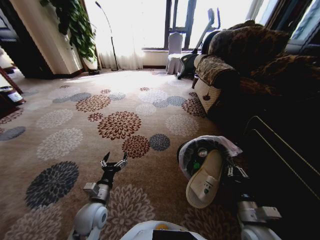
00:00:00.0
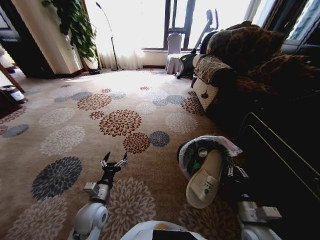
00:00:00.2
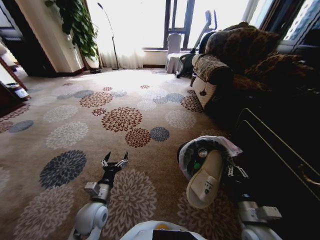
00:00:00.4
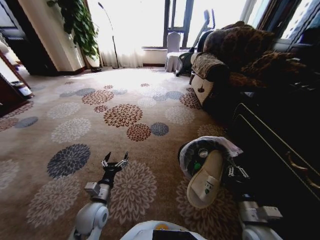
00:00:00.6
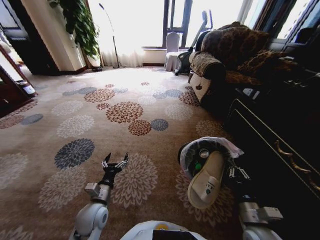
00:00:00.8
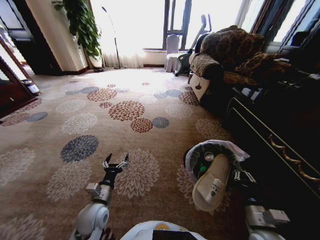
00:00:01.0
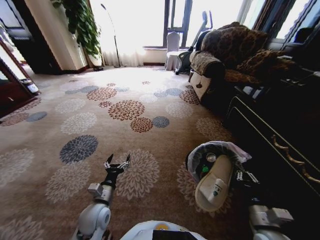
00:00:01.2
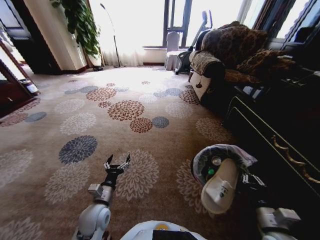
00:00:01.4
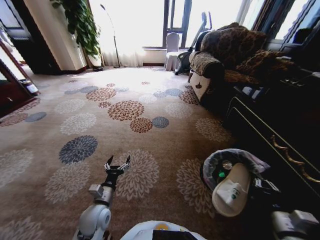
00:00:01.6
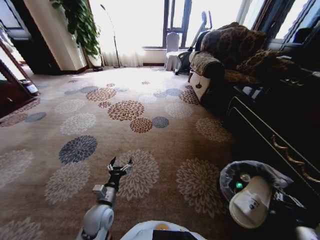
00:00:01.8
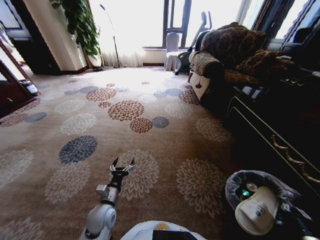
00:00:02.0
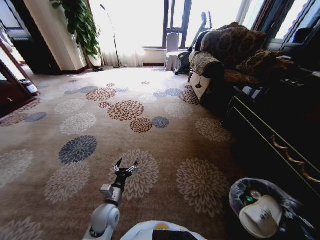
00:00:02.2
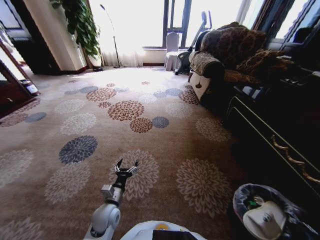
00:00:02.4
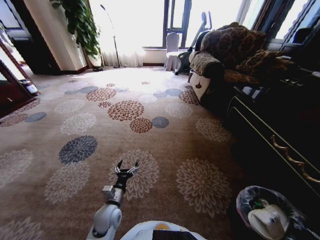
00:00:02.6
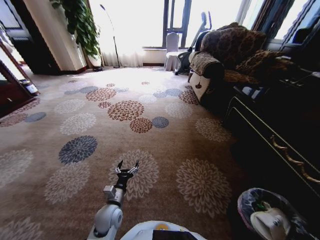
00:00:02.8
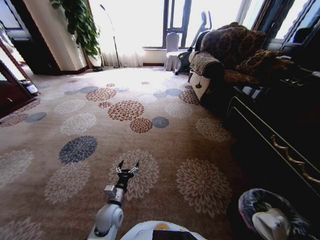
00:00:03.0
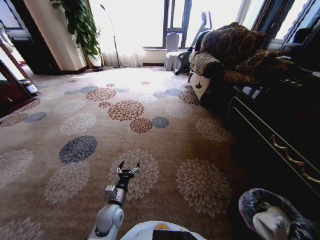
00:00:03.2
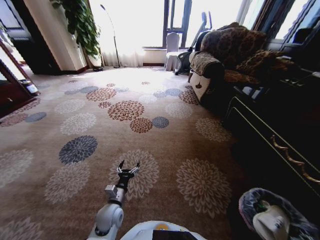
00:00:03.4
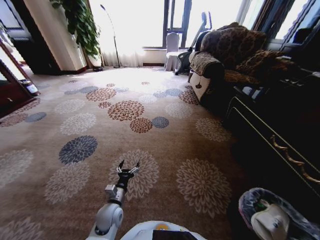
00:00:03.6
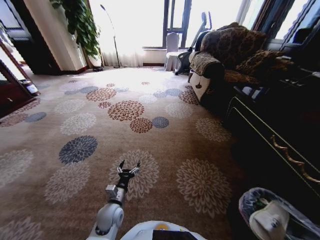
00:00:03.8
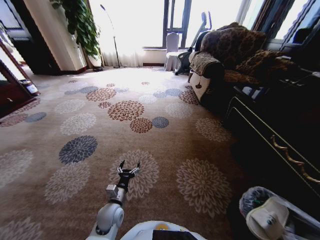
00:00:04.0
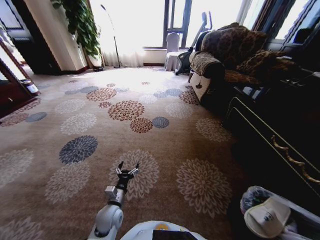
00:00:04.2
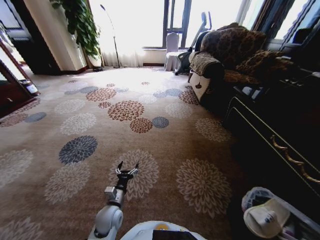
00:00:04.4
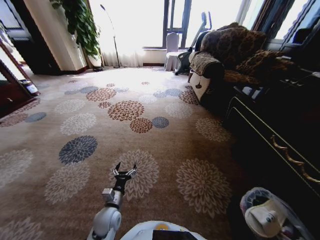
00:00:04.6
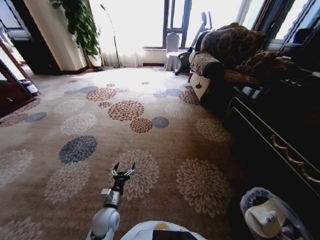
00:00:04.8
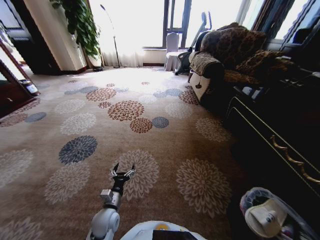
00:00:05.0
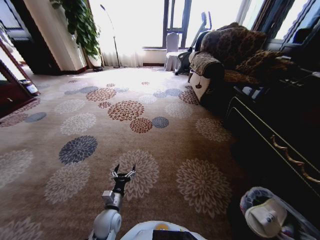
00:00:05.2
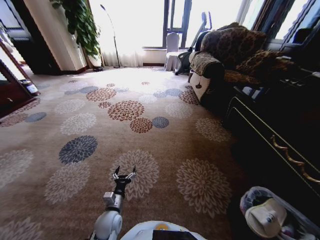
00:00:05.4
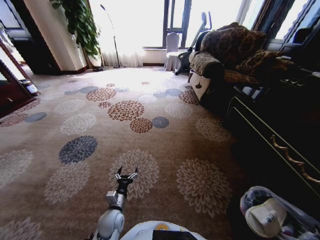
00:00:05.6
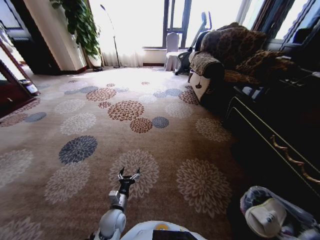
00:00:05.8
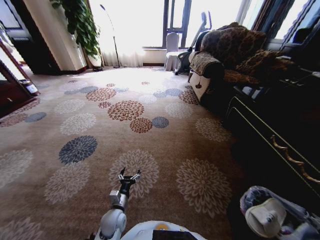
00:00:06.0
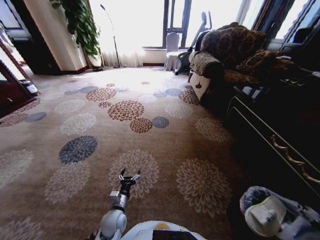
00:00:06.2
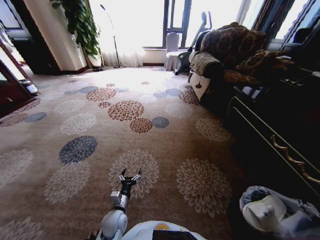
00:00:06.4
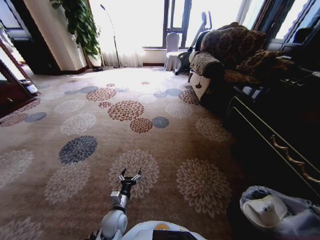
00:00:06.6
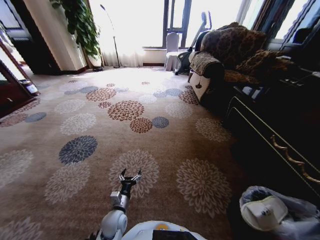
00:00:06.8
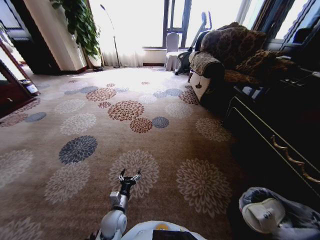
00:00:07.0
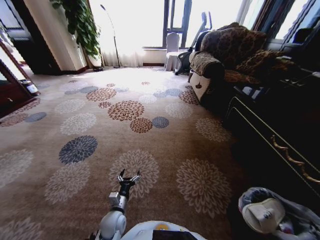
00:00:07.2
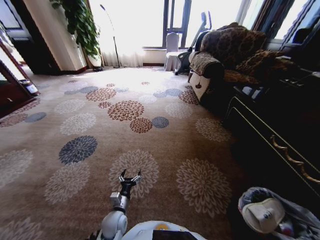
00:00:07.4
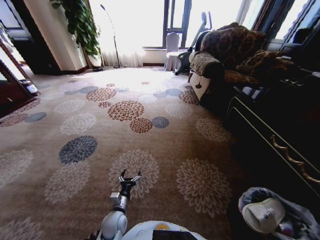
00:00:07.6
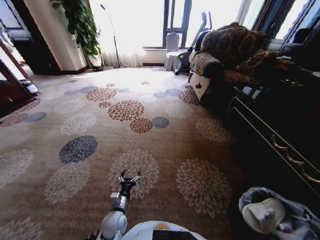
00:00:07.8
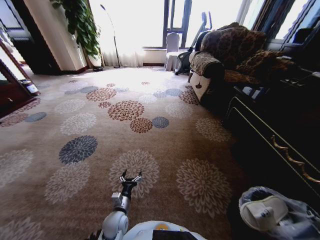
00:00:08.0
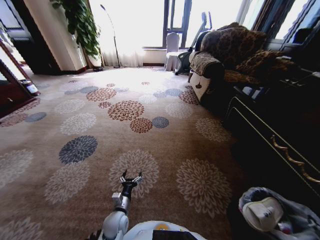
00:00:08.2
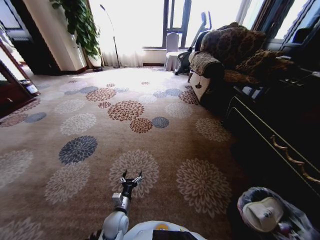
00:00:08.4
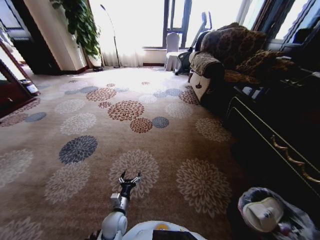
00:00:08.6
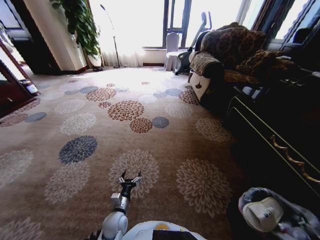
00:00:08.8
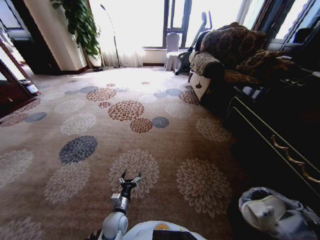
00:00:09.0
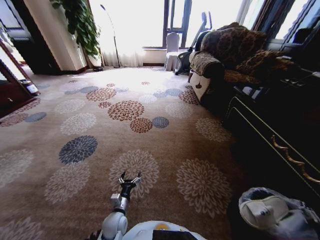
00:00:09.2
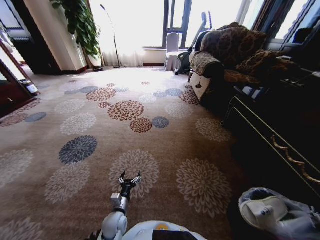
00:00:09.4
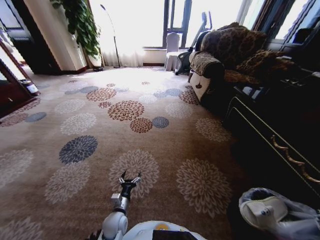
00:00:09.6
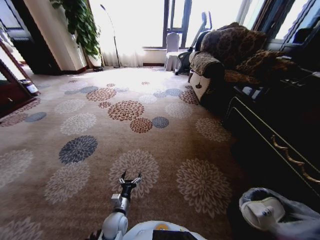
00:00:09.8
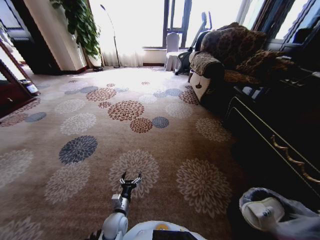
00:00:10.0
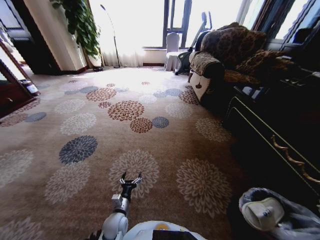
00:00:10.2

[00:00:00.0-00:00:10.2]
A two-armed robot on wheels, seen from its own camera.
Task of the whole recording: Pick up the trash from the ground and place it into the trash bin.
00:00:00.0 to 00:00:01.4: The right gripper heads to the right, covering approximately 5 cm.
00:00:01.4 to 00:00:03.0: The left gripper is displaced downward by roughly 5 cm; the right gripper moves to the right, backward and downward, some 20 cm.
00:00:03.0 to 00:00:04.4: The right gripper is displaced backward by about 10 cm, and opens its fingers.
00:00:04.4 to 00:00:05.8: The right gripper is displaced forward by roughly 10 cm.
00:00:05.8 to 00:00:07.2: There are only small adjustments of the grippers.
00:00:08.8 to 00:00:10.2: The right gripper goes approximately 5 cm upward, and closes, then opens again.

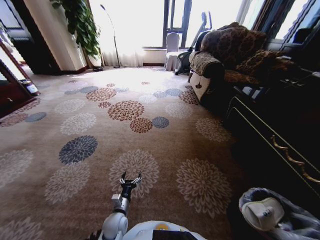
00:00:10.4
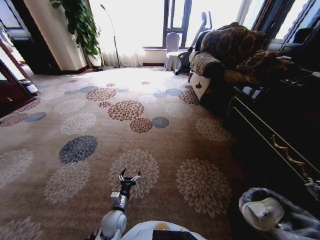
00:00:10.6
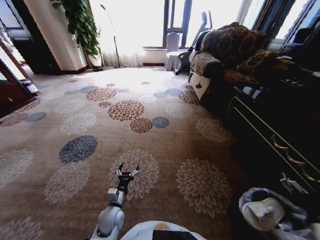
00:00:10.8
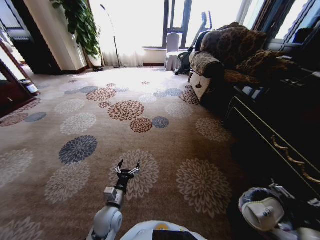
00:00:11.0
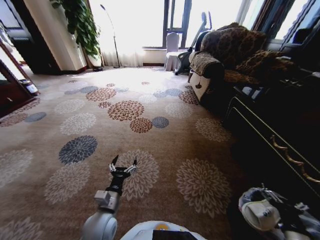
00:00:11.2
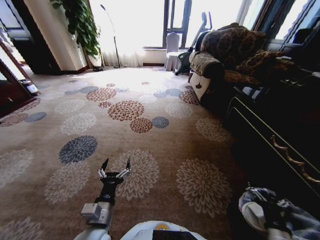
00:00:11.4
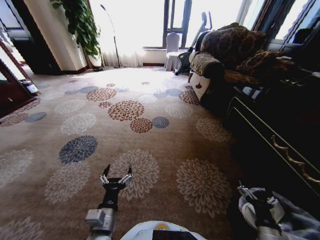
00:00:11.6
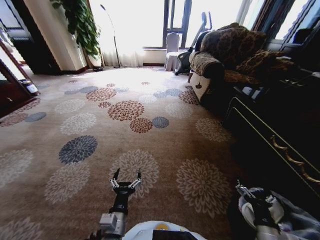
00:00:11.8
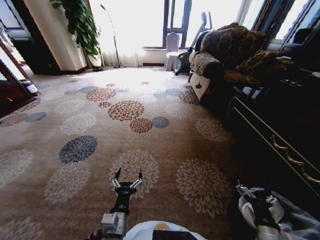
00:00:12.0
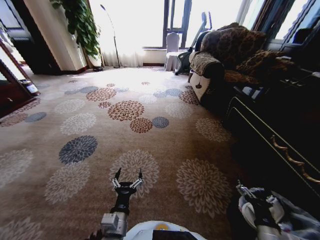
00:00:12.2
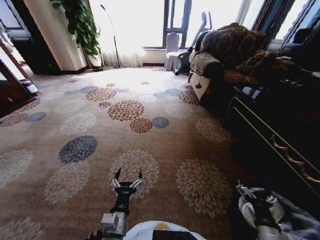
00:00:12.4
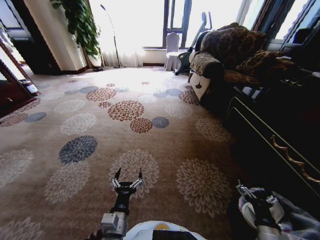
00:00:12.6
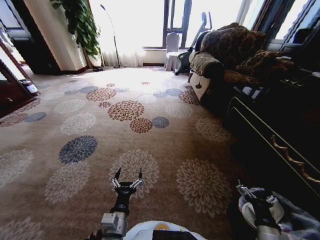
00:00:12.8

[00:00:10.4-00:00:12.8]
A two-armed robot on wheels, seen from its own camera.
Task of the whole recording: Pick up the trash from the ground and place it into the trash bin.
00:00:10.4 to 00:00:11.6: The left gripper moves upward and backward, roughly 20 cm; the right gripper moves to the left and downward, roughly 20 cm.
00:00:11.6 to 00:00:12.8: The grippers move only a little.
